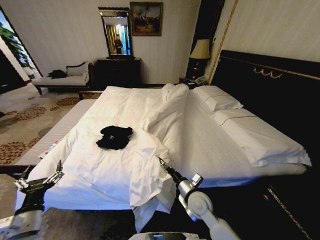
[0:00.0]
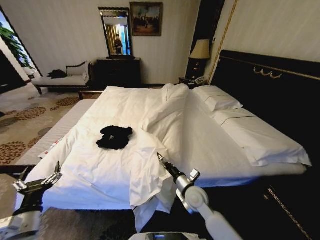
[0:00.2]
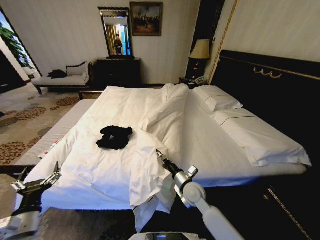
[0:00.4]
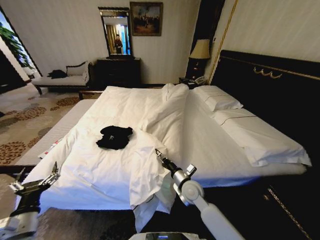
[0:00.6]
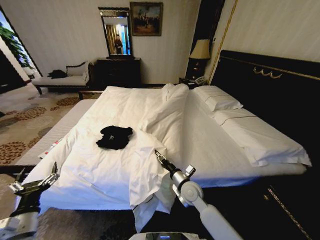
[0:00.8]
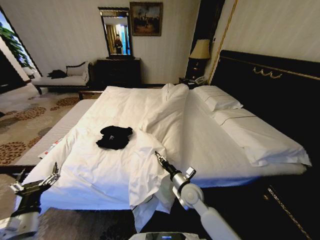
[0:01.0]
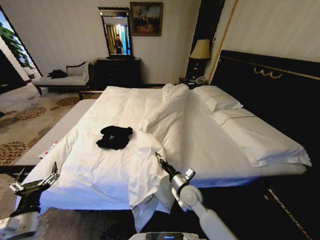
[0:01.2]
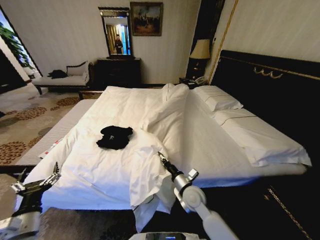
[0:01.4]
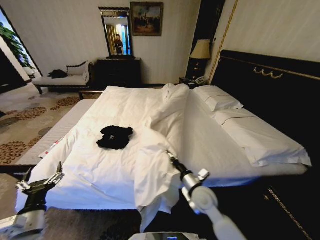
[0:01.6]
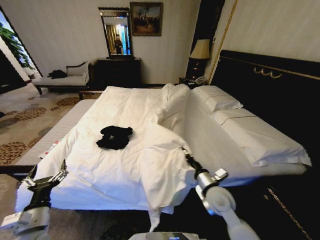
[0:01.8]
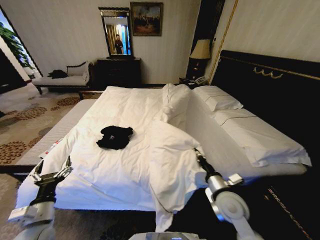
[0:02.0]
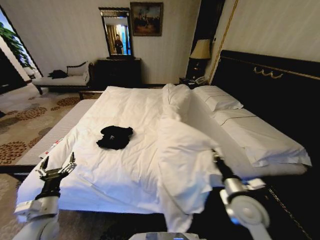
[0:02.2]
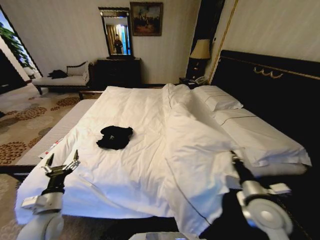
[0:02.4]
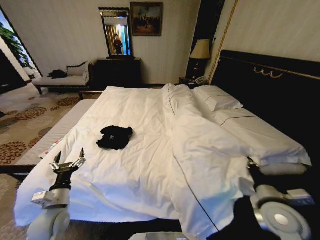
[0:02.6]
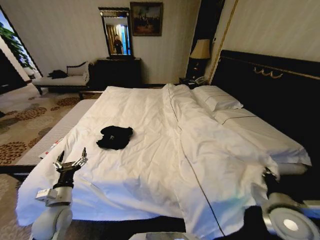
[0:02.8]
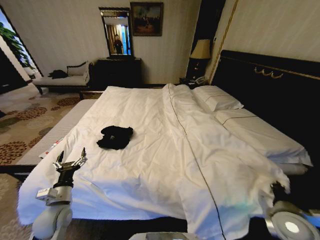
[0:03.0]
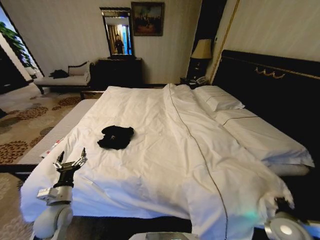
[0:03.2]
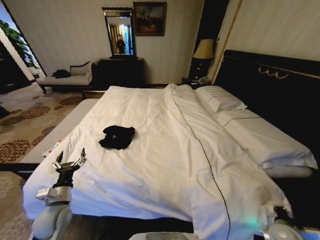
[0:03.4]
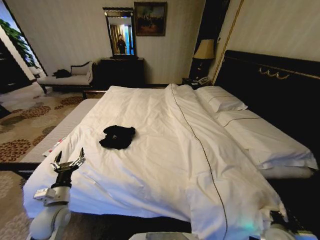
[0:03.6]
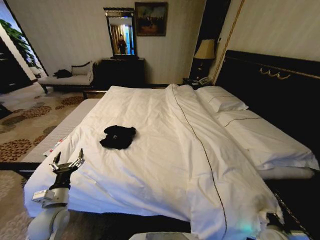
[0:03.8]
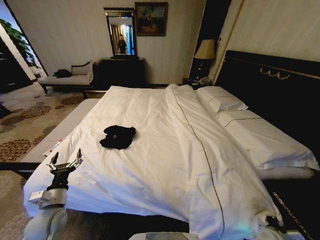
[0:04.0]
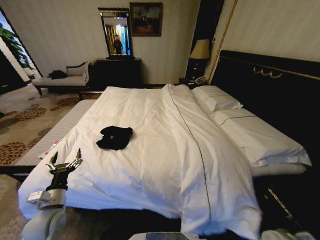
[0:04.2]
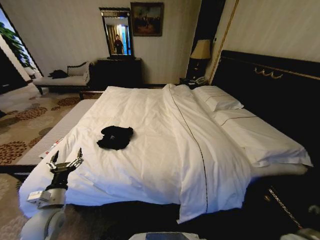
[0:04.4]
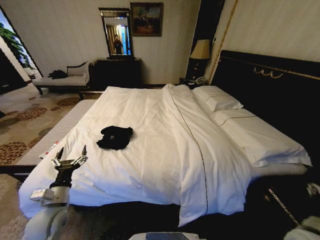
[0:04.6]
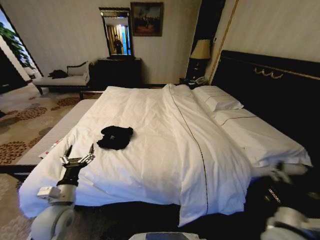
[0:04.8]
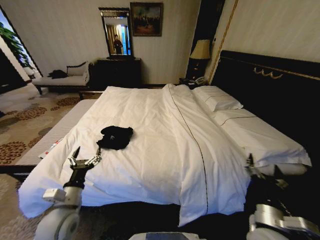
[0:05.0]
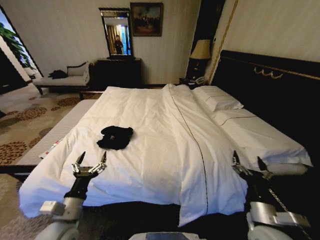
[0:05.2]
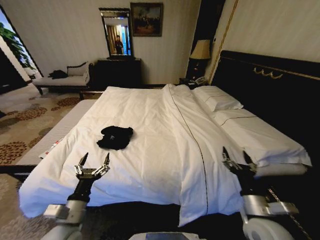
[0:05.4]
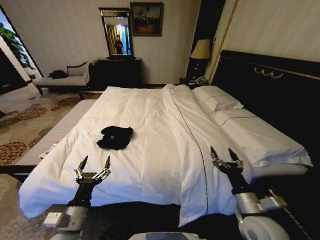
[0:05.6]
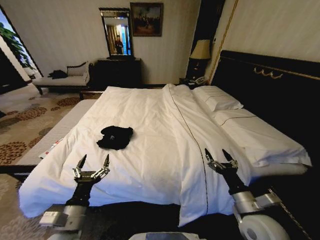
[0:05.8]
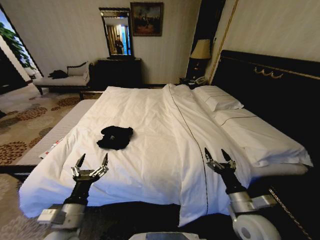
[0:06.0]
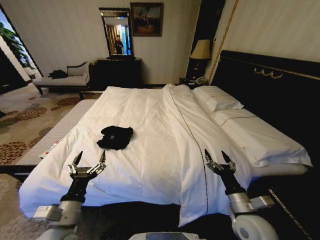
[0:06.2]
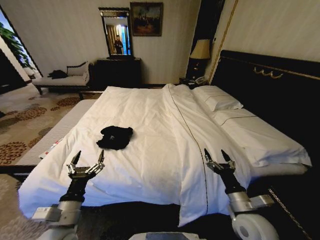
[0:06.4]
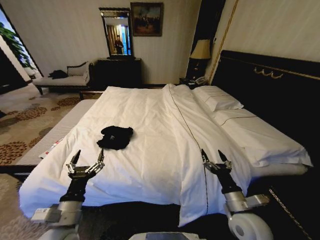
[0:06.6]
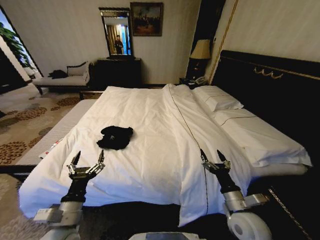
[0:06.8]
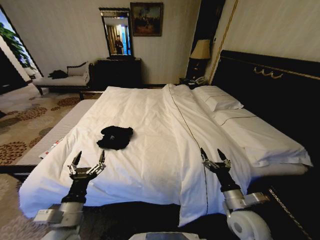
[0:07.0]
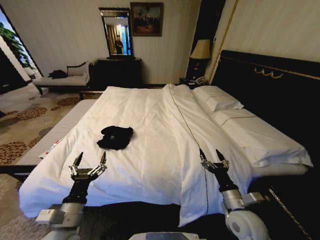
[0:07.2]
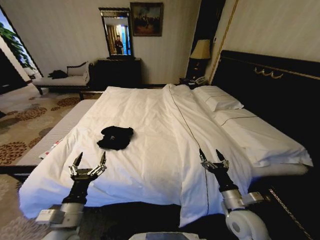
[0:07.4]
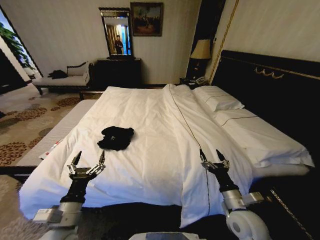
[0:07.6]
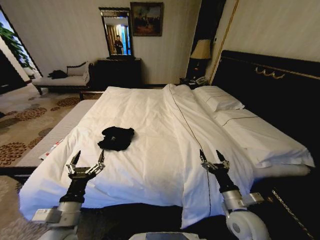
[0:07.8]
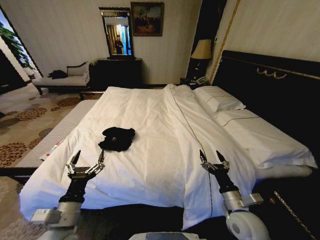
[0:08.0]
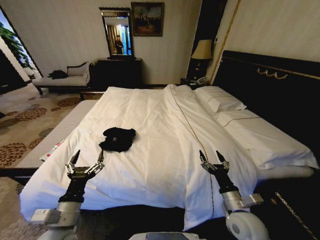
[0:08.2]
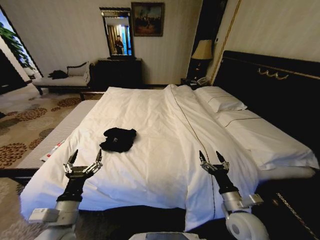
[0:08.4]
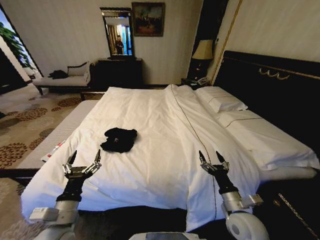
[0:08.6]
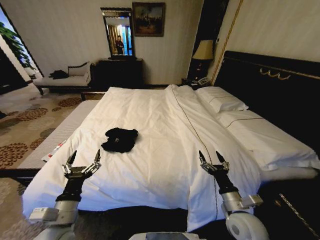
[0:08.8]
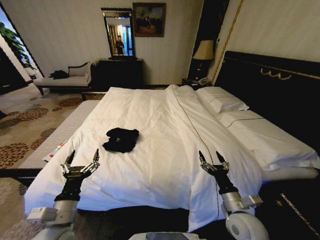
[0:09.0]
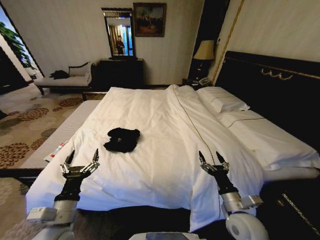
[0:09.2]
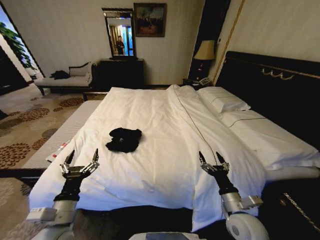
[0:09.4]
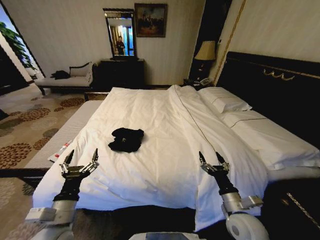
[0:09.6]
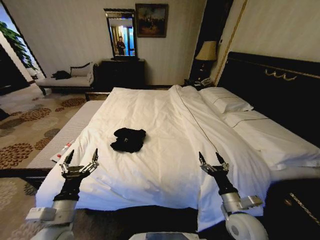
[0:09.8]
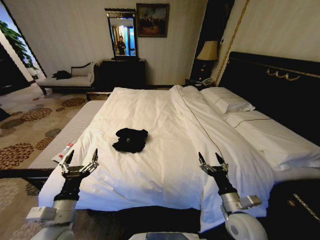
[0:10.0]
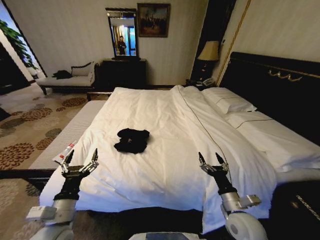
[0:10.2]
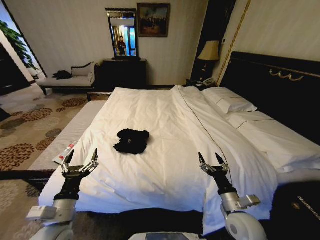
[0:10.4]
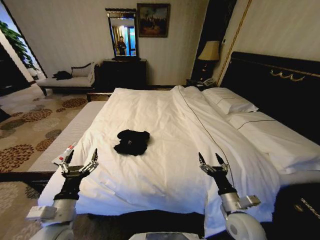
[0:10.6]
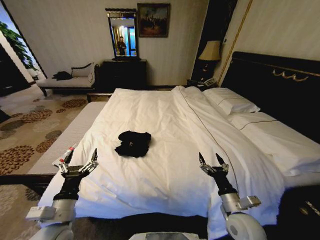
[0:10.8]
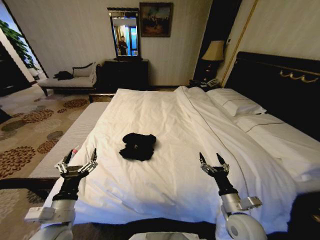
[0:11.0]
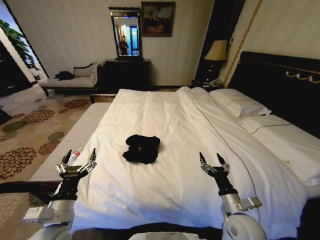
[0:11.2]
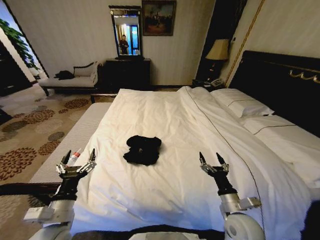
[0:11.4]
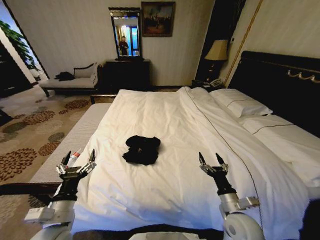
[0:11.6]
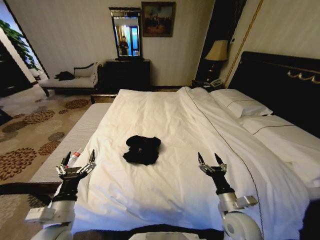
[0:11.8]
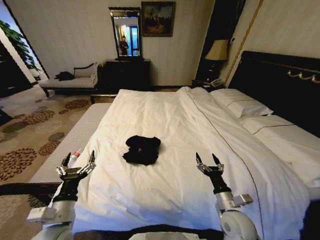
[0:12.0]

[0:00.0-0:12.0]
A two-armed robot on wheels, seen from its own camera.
Task of the whole recording: Fold the clothes on the bed.
0:00.0 to 0:01.6: The right gripper closes.
0:01.6 to 0:03.0: The left gripper goes some 10 cm forward, while the right gripper is displaced to the right and backward by some 25 cm.
0:03.0 to 0:04.4: The right gripper goes approximately 10 cm downward and to the right, and opens.
0:04.4 to 0:06.0: The right gripper moves to the left and upward, approximately 20 cm, and opens its fingers. Meanwhile the left gripper heads to the right and backward, covering approximately 10 cm.
0:06.0 to 0:09.0: The grippers make only small movements.

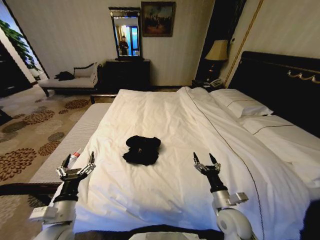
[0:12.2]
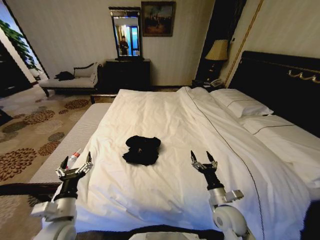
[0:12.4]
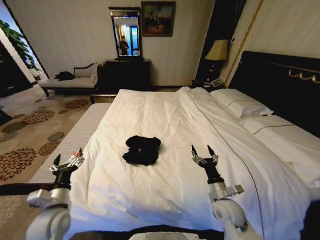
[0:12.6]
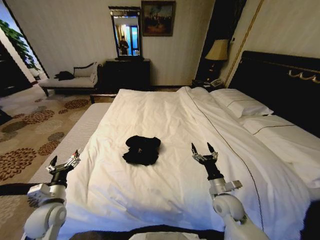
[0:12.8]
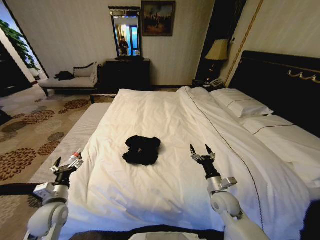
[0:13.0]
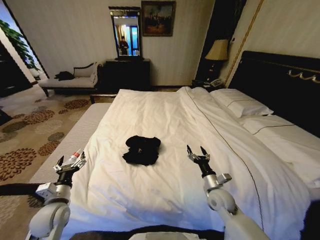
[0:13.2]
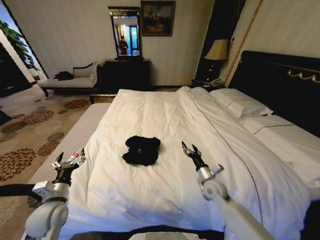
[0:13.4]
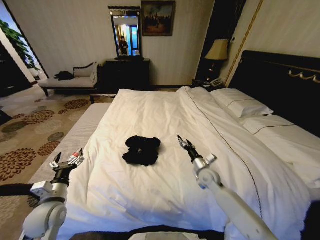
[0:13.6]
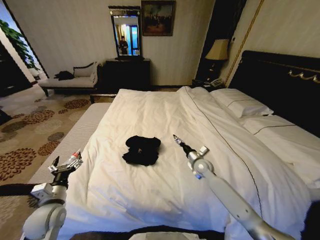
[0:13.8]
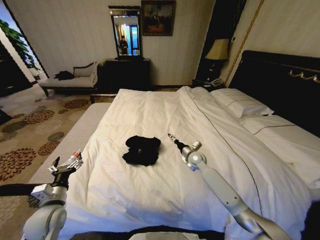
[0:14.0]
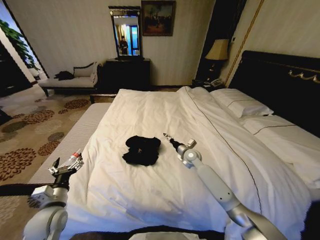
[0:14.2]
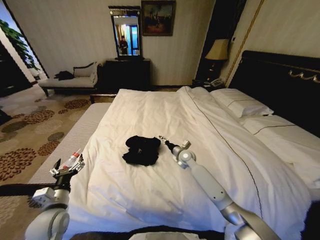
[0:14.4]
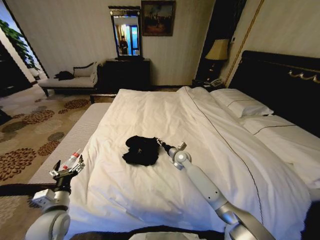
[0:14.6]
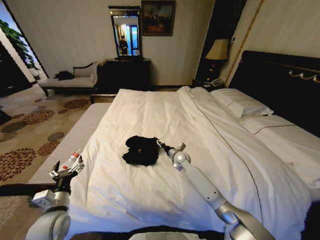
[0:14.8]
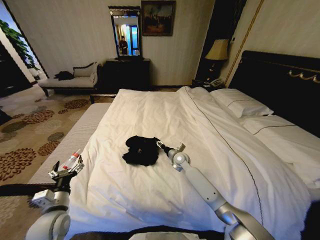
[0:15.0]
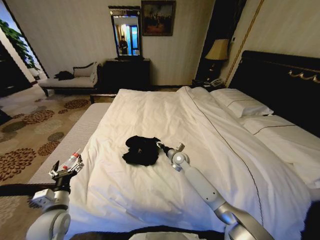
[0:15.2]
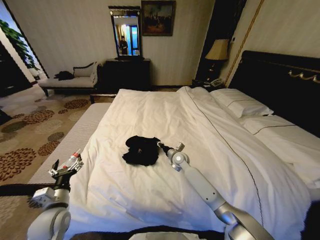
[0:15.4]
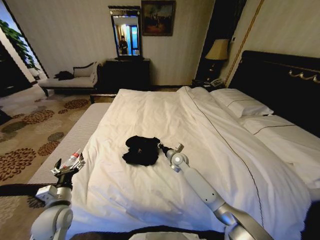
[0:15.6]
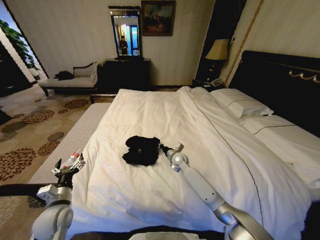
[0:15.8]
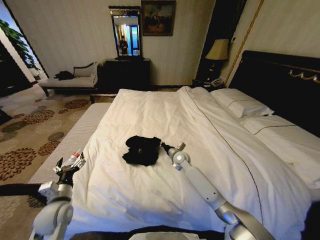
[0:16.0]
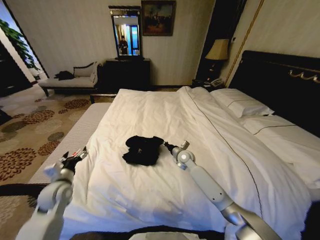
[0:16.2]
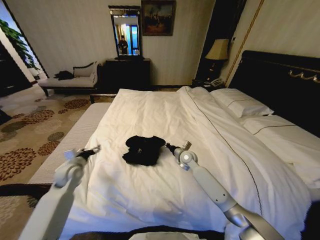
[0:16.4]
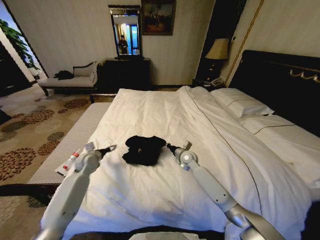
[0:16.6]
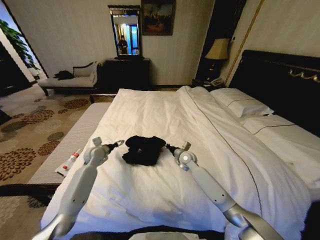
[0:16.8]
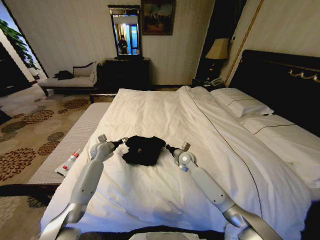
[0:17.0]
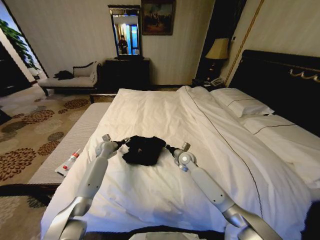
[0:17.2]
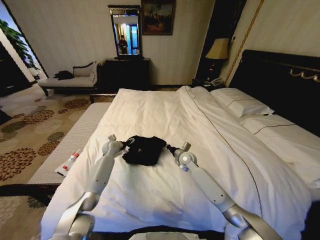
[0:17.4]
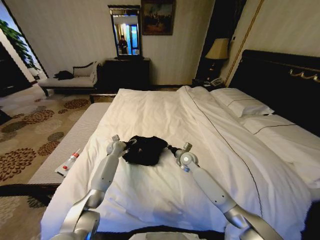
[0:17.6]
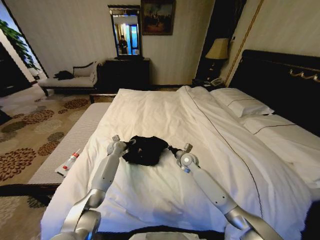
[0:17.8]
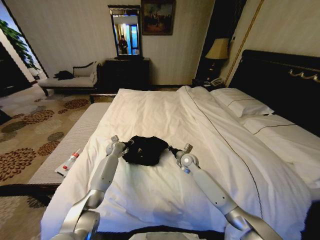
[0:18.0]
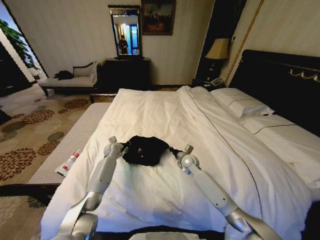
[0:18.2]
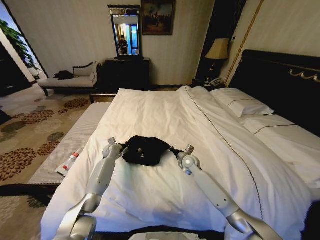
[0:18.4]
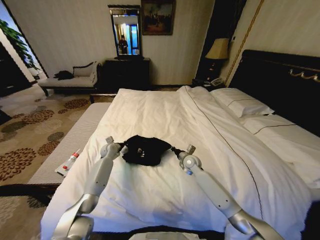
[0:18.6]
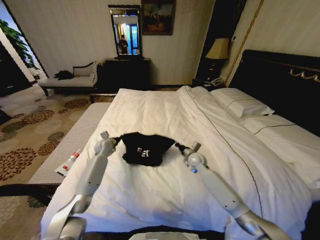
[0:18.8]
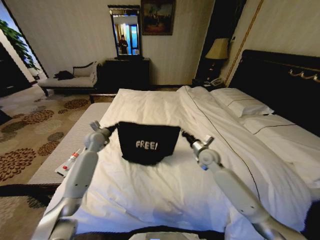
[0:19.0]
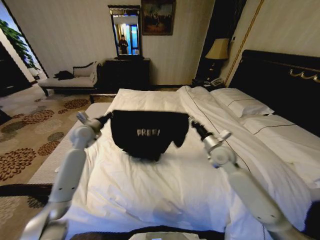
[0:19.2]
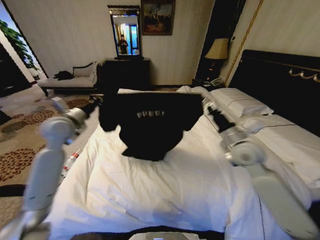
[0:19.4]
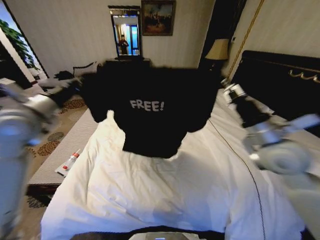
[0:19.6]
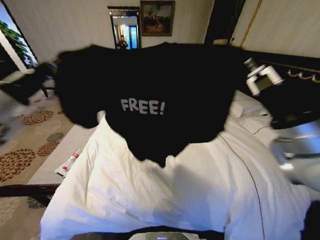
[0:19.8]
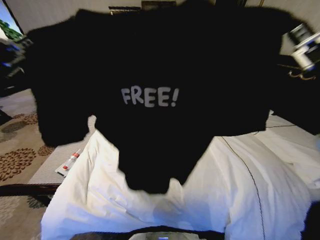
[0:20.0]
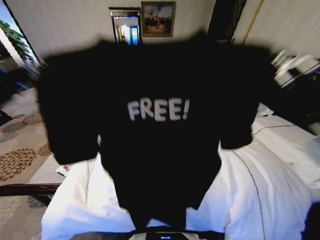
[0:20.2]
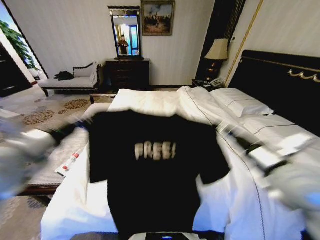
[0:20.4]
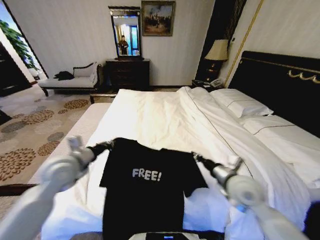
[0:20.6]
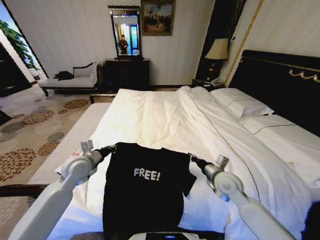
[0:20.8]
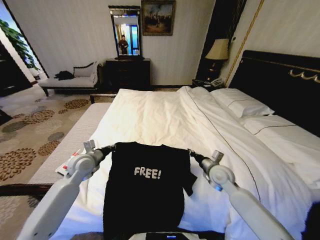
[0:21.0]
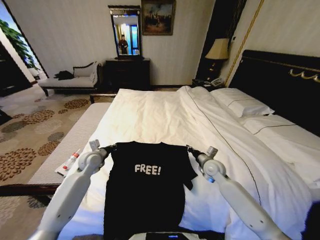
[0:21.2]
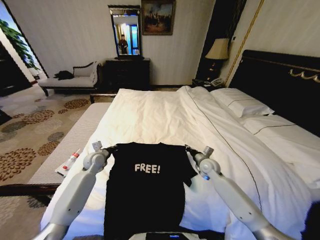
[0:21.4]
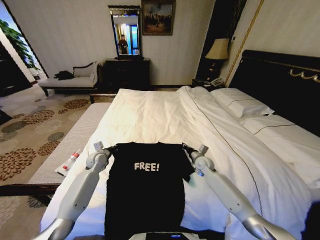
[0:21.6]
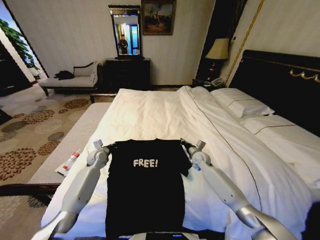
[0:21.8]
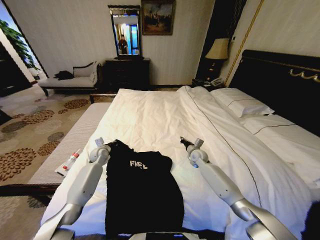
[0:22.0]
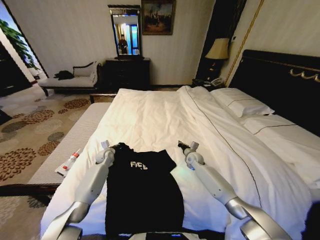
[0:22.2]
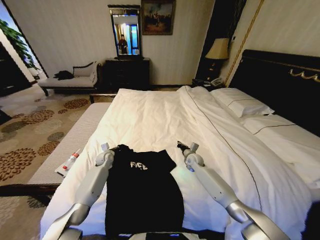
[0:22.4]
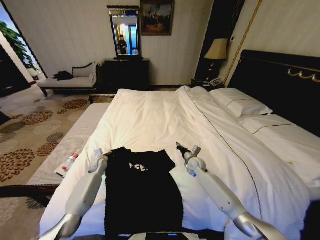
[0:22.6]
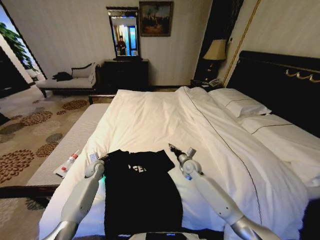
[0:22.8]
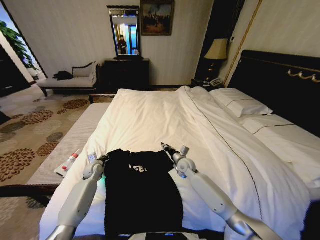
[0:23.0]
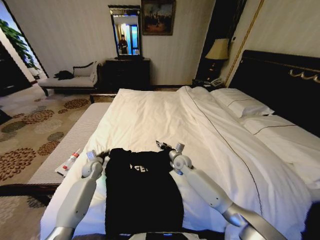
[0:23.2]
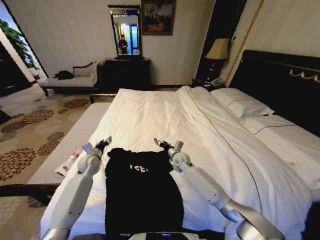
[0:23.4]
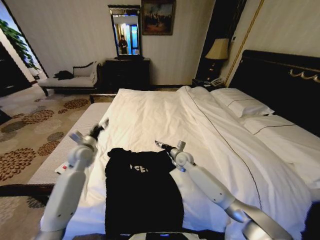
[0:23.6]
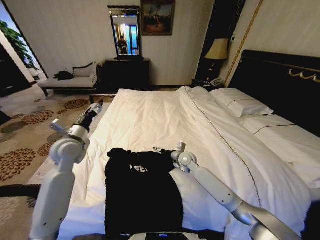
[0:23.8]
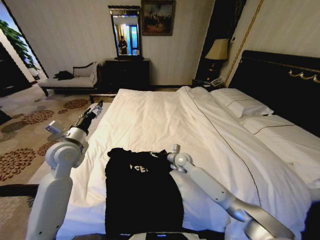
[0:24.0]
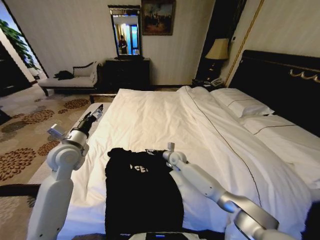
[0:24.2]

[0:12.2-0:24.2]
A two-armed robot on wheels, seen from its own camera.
Task of the whole recording: Fold the clothes on the bed.
0:12.2 to 0:13.8: The right gripper is displaced forward by approximately 25 cm, while the left gripper shifts about 10 cm to the left and forward.
0:13.8 to 0:15.2: The right gripper moves to the left and forward, roughly 10 cm.
0:15.2 to 0:16.6: The left gripper is displaced forward by about 25 cm. Meanwhile the right gripper closes.
0:16.6 to 0:18.2: The left gripper is displaced forward, to the right and downward by roughly 15 cm, and closes its fingers.
0:18.2 to 0:19.8: The grippers both shift upward and backward by some 50 cm.
0:19.8 to 0:21.2: The grippers both shift downward and forward by roughly 35 cm.
0:21.2 to 0:22.6: Both grippers travel together downward and forward, some 10 cm.
0:22.6 to 0:24.2: The right gripper shifts about 10 cm to the left, and opens, while the left gripper heads upward and backward, covering some 30 cm, and opens.
